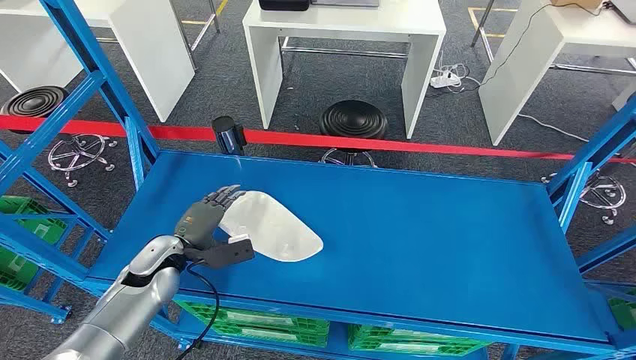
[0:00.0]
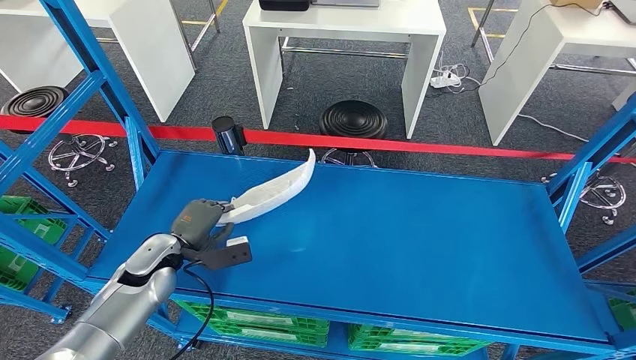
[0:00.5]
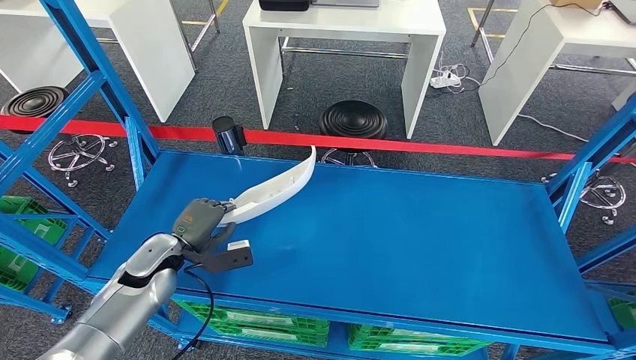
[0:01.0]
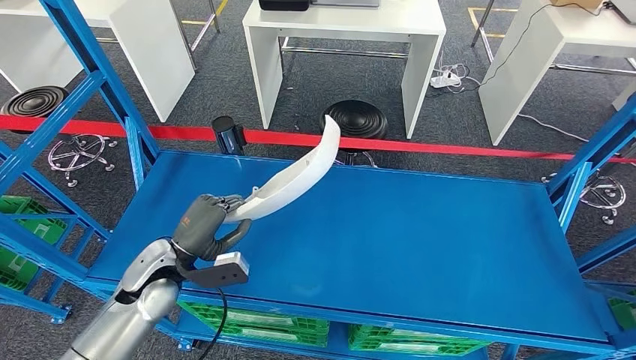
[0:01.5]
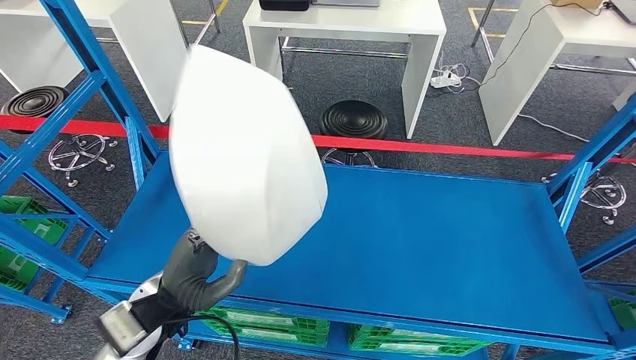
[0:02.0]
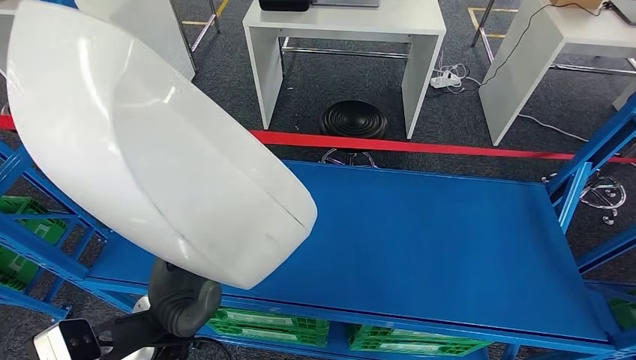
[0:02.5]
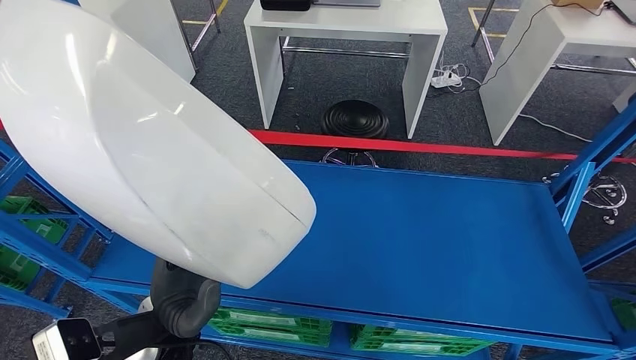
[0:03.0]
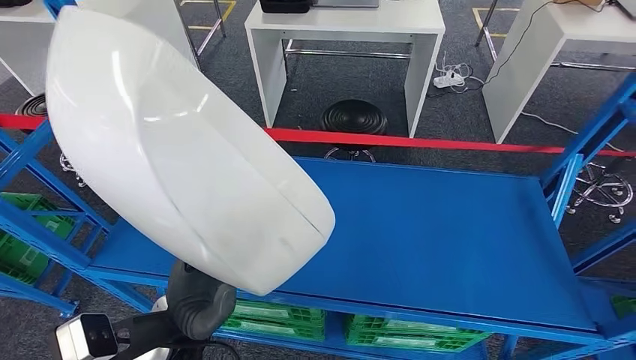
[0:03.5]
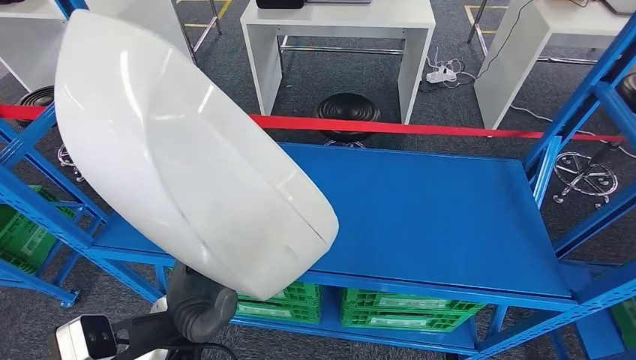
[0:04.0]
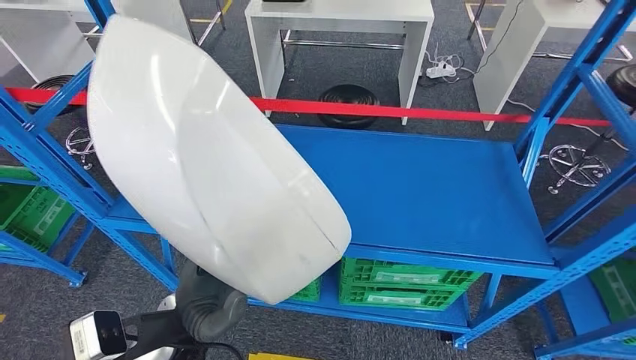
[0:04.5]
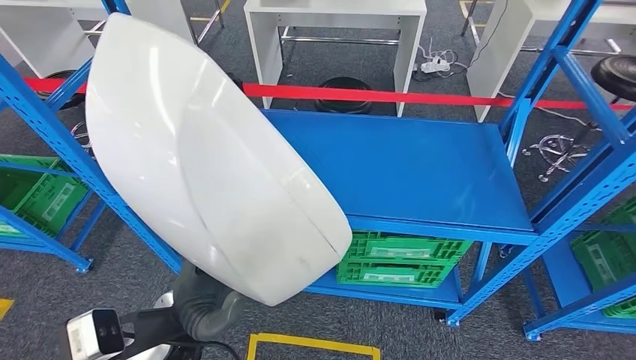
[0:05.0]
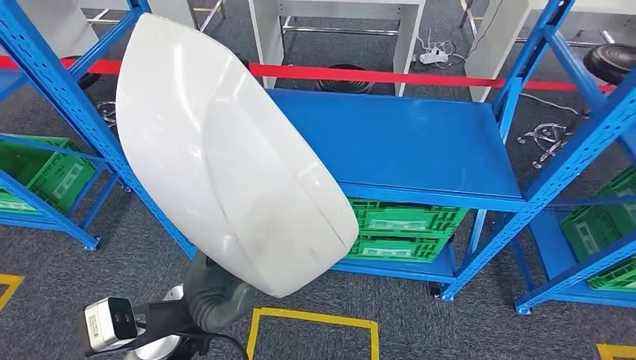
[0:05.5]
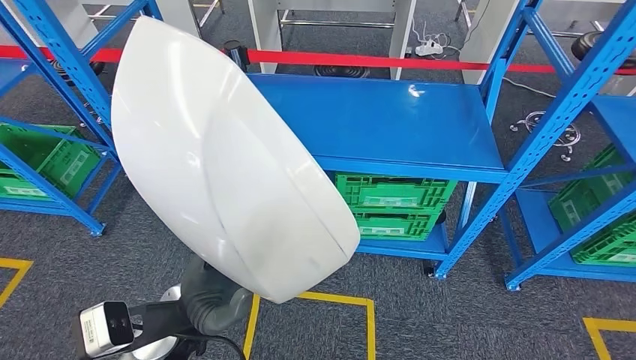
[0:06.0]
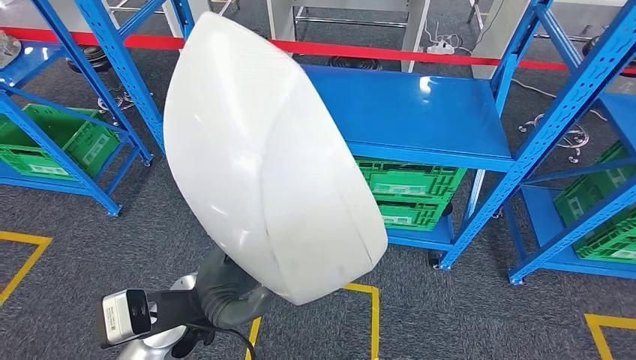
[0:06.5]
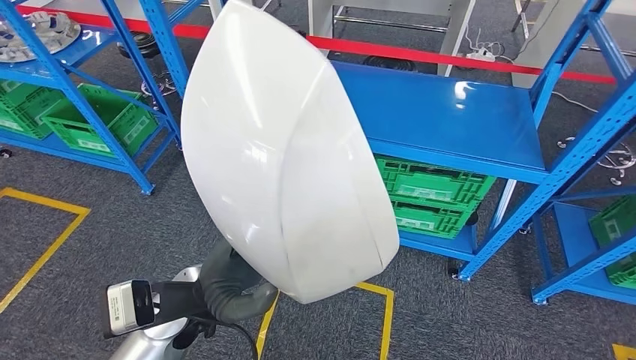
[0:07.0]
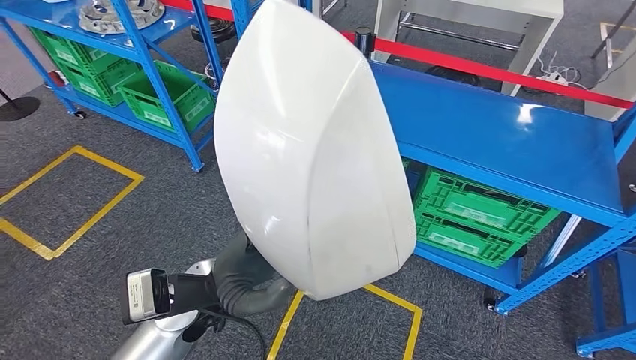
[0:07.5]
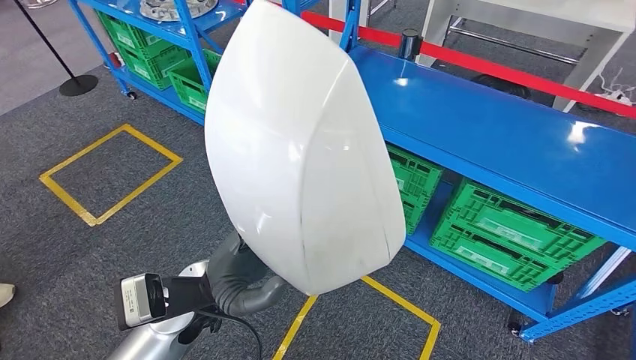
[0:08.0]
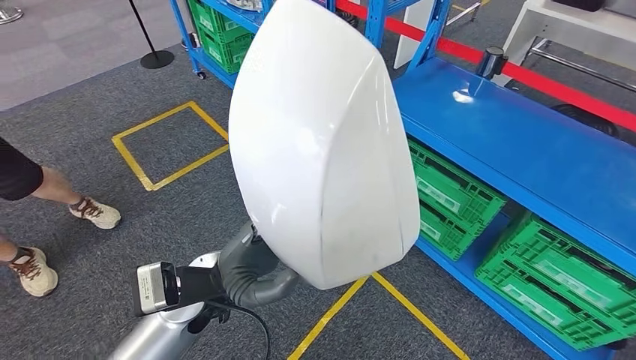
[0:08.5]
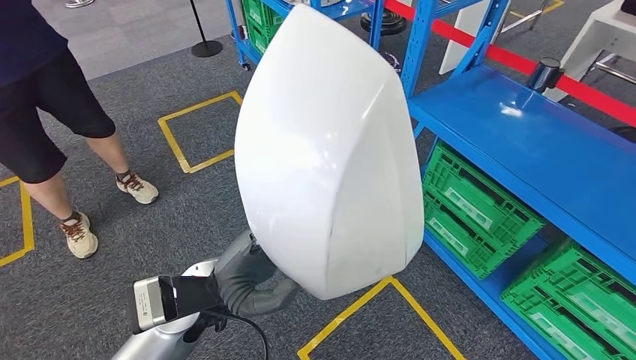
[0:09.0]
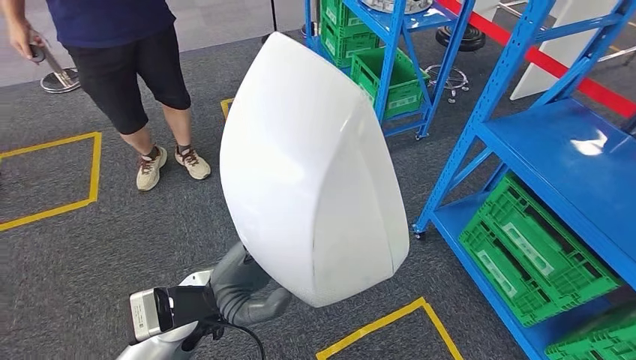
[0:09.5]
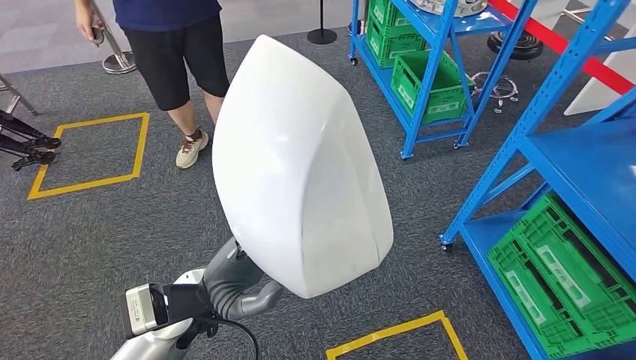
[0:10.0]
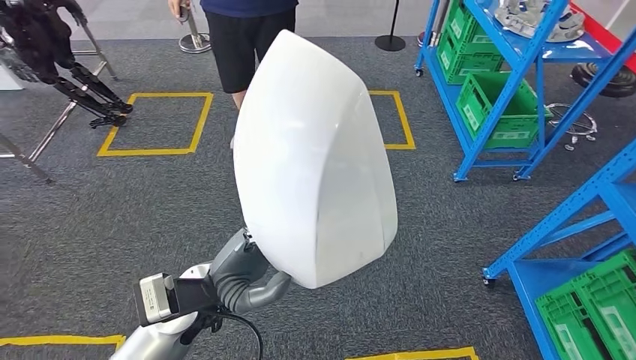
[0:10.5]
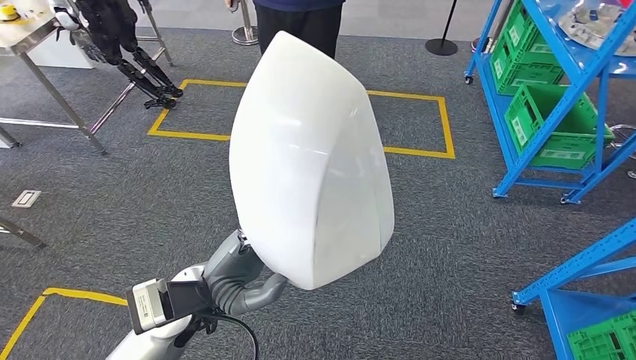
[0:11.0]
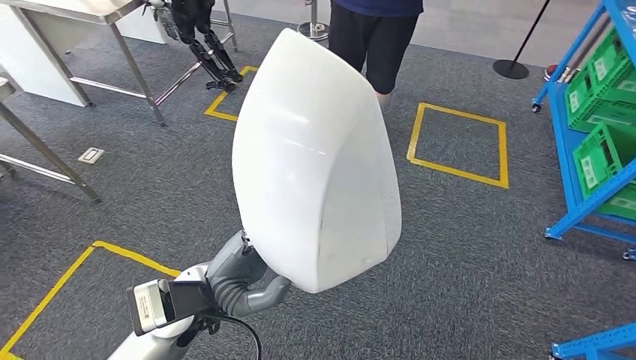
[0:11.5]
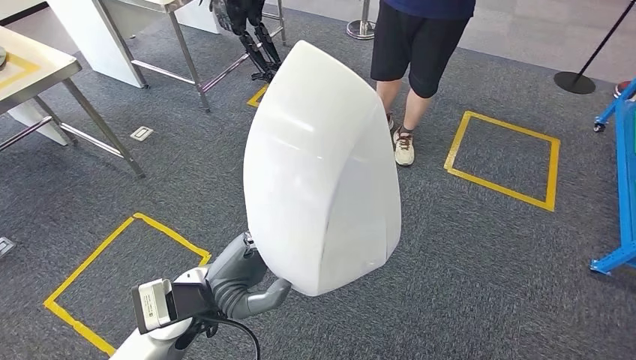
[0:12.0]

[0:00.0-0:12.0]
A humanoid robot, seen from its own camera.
Step, 0:00.0 to 0:02.5: Pick up the small parts from the shelf.

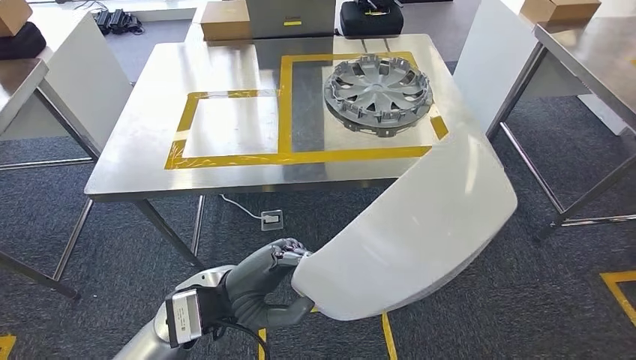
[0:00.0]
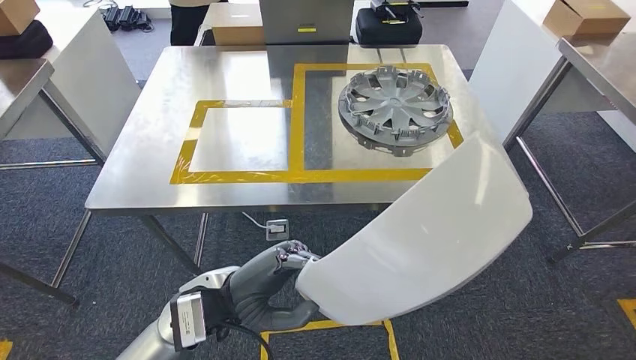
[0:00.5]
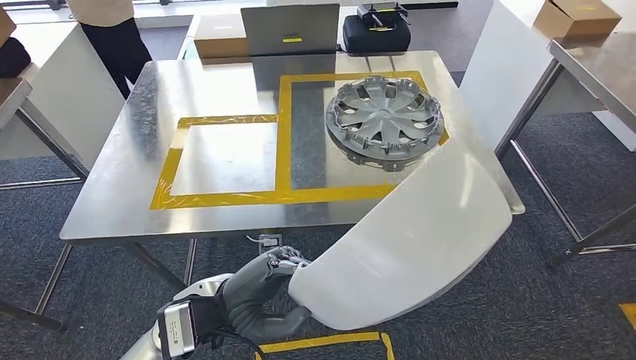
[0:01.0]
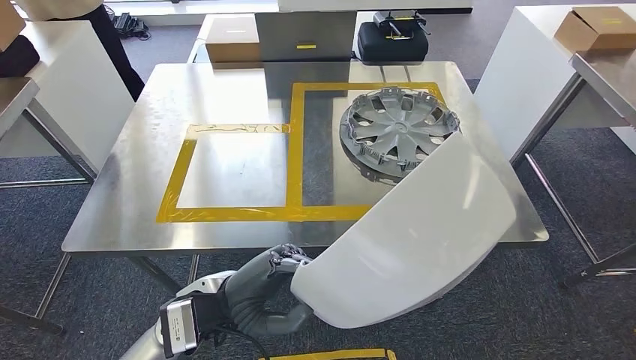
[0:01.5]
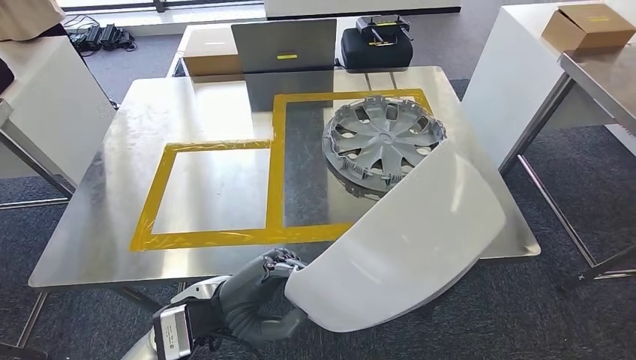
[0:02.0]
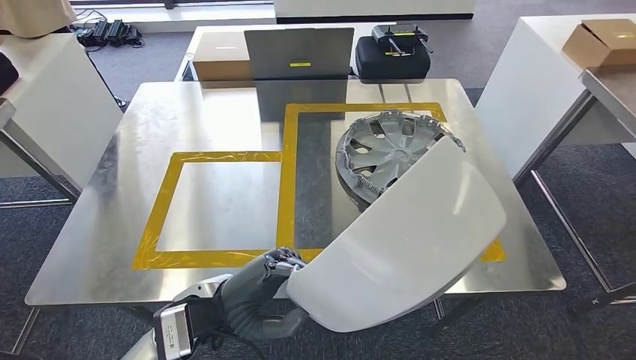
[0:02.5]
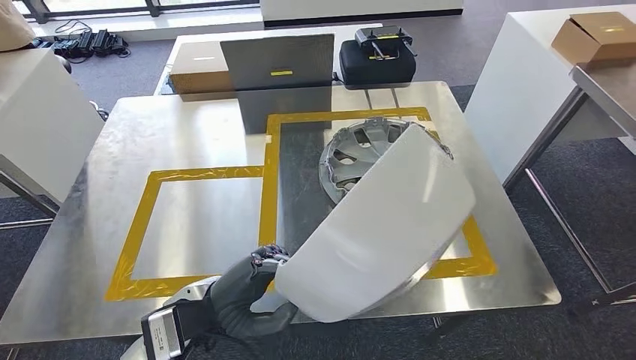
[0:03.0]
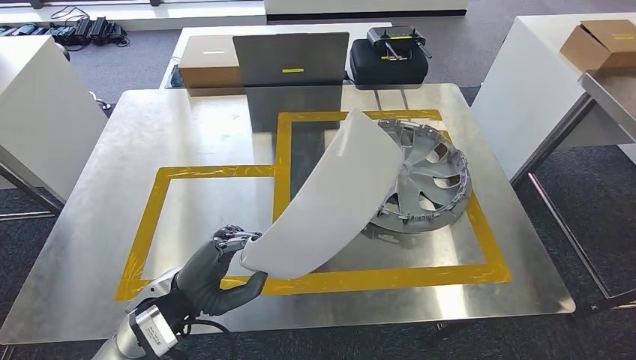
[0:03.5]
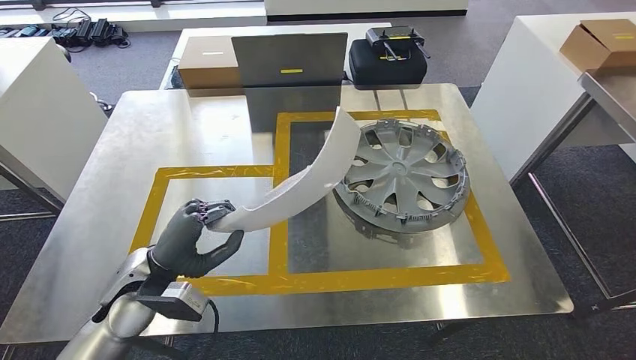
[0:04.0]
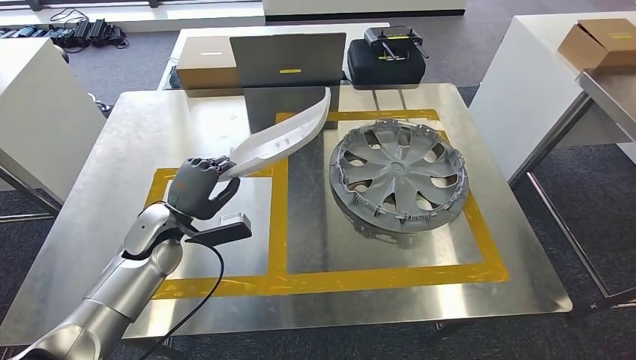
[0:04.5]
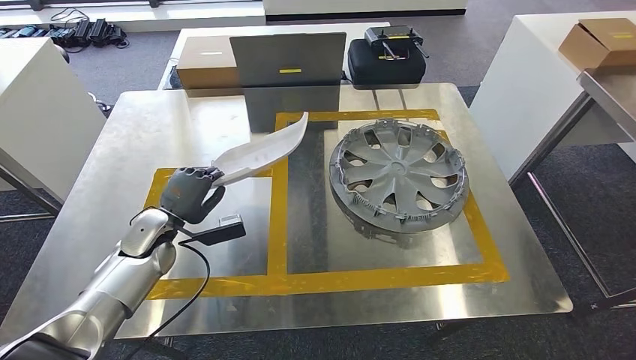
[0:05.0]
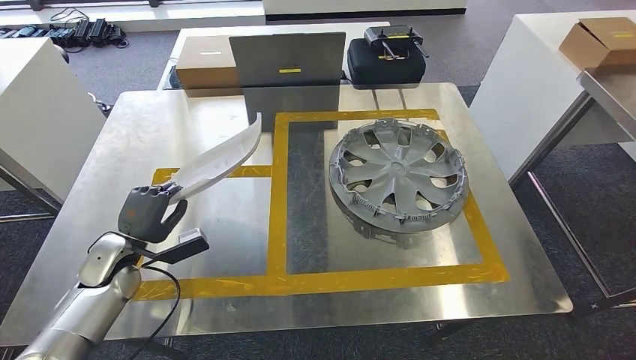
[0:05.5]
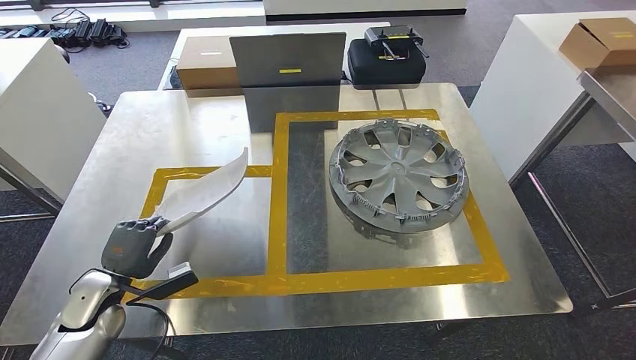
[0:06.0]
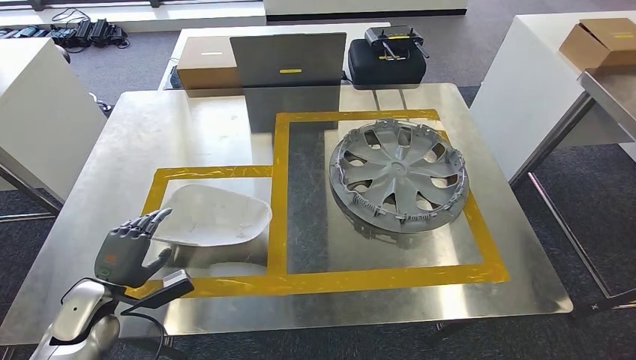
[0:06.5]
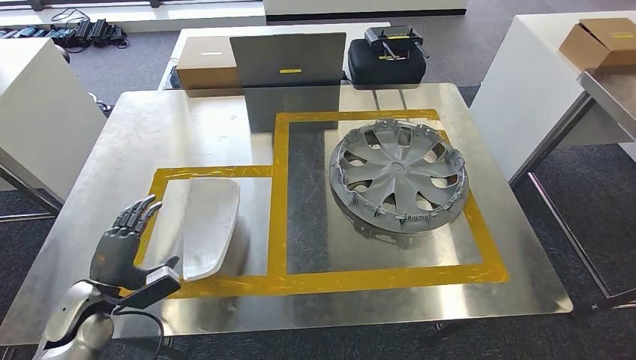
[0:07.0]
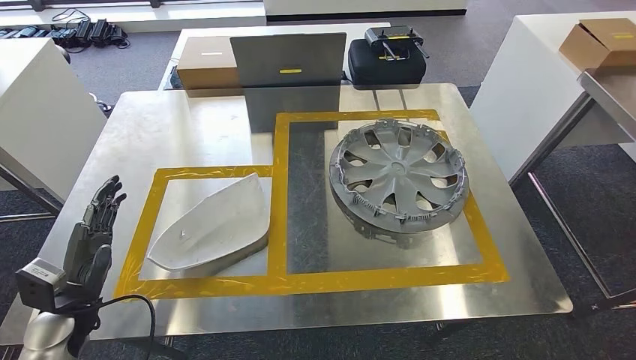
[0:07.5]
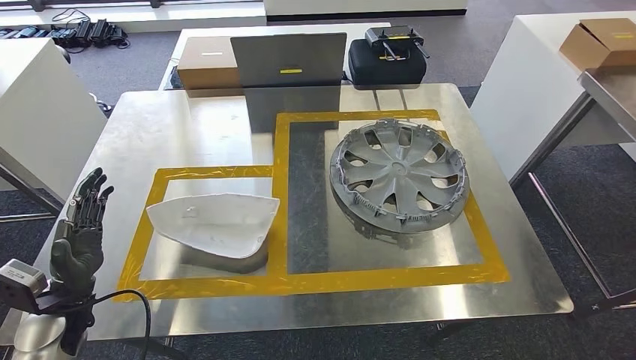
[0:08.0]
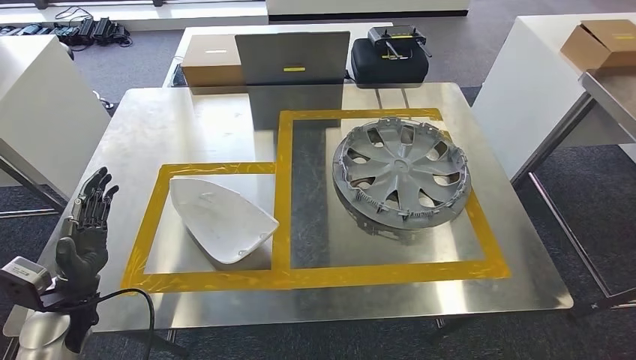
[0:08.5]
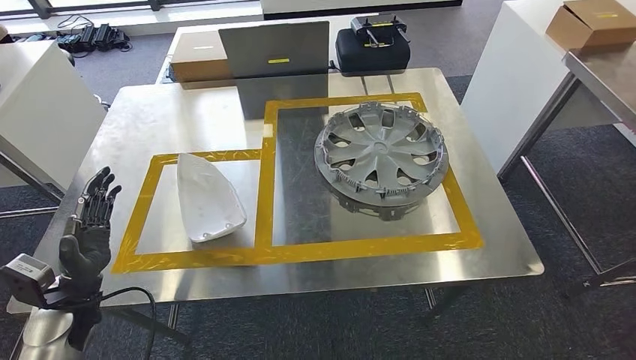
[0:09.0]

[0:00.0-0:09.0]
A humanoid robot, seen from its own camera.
Step, 0:00.0 to 0:03.5: Move the small parts to the workbench.
Step, 0:04.0 to 0:07.5: Insert the small parts into the corresponding slots on the workbench.
0:04.5 to 0:07.0: The left hand heads backward, to the left and downward, covering about 20 cm.
